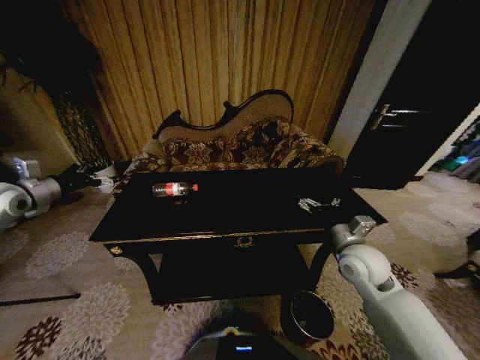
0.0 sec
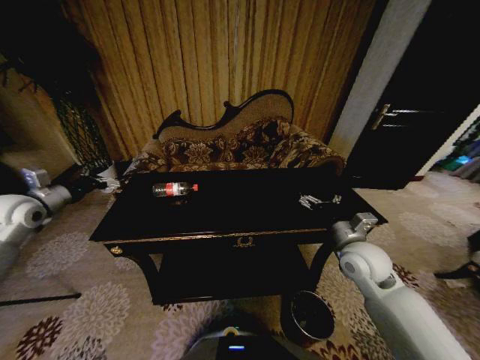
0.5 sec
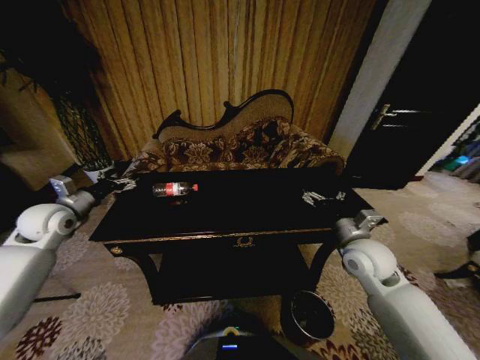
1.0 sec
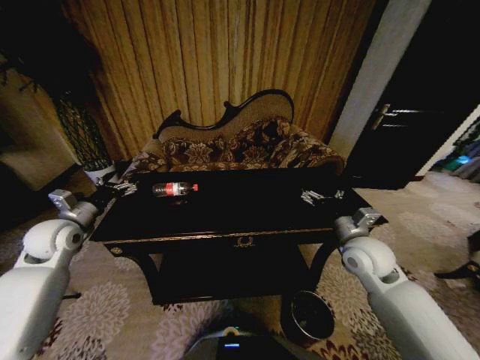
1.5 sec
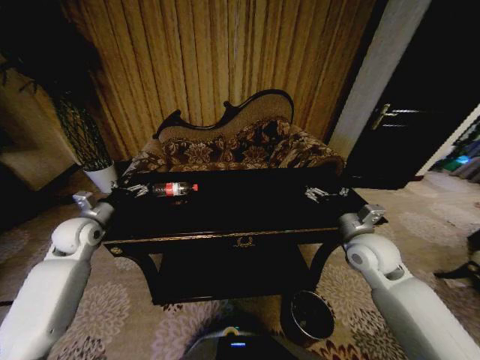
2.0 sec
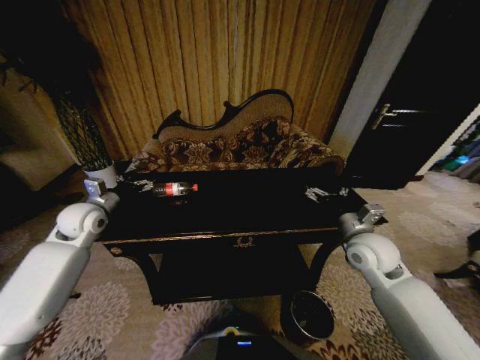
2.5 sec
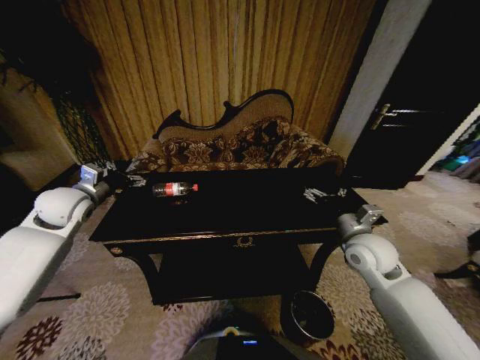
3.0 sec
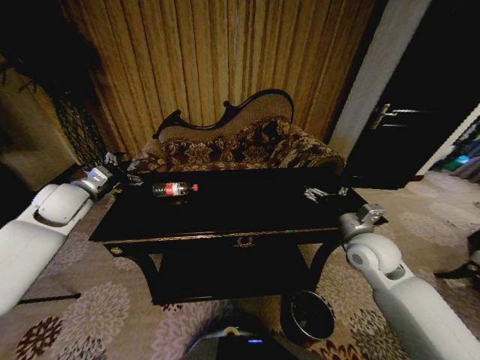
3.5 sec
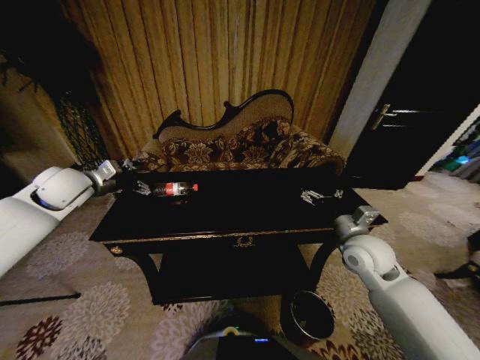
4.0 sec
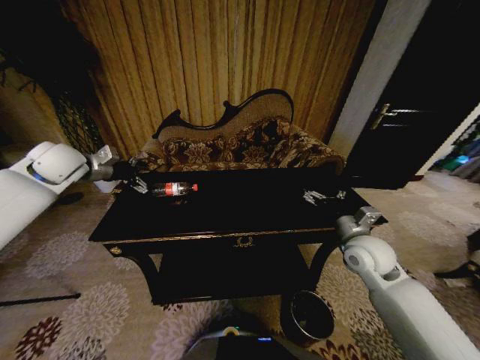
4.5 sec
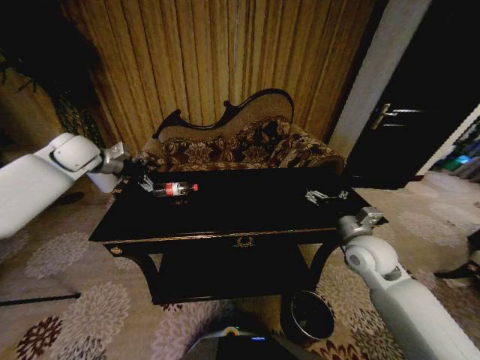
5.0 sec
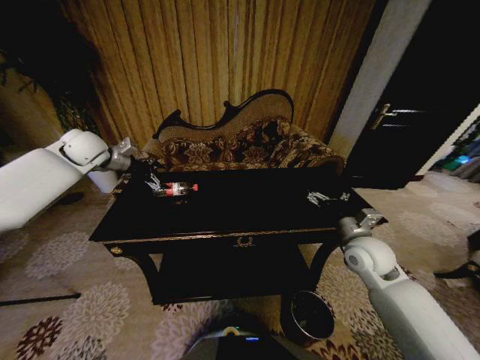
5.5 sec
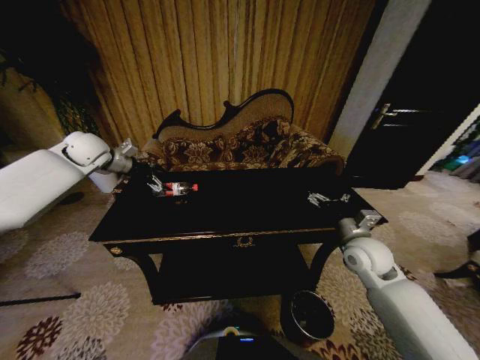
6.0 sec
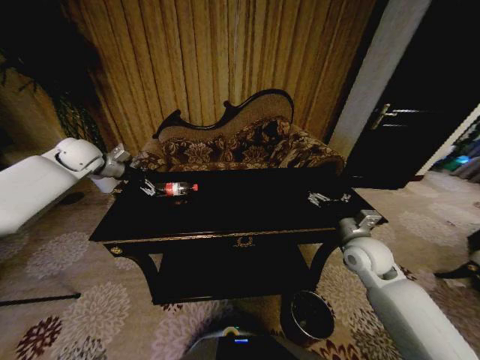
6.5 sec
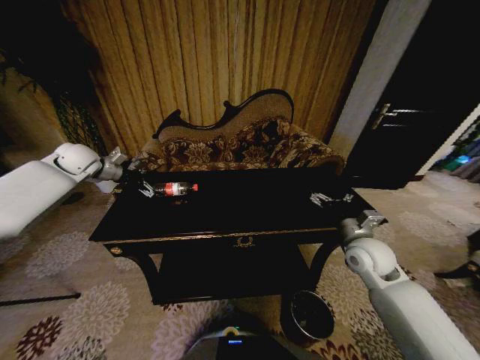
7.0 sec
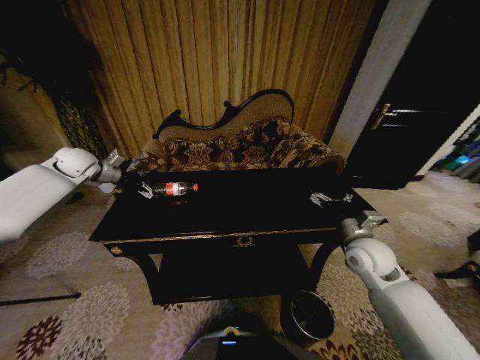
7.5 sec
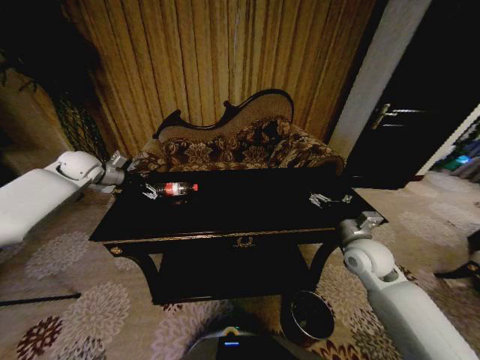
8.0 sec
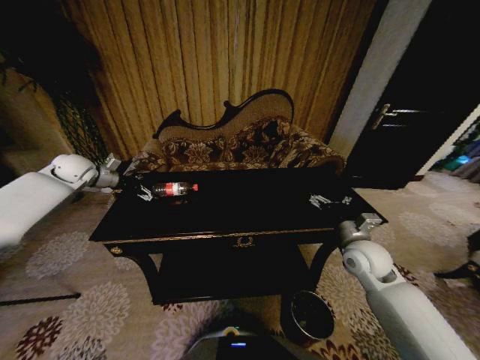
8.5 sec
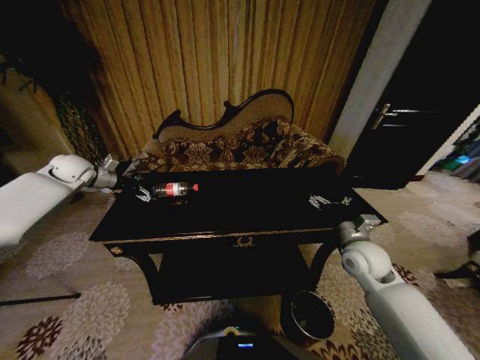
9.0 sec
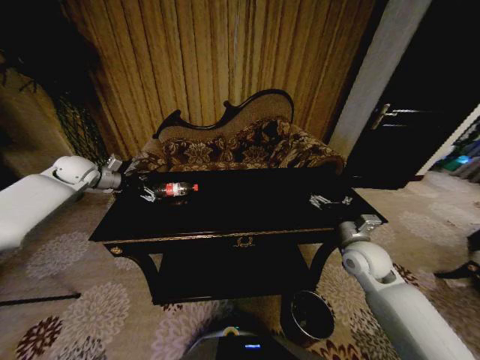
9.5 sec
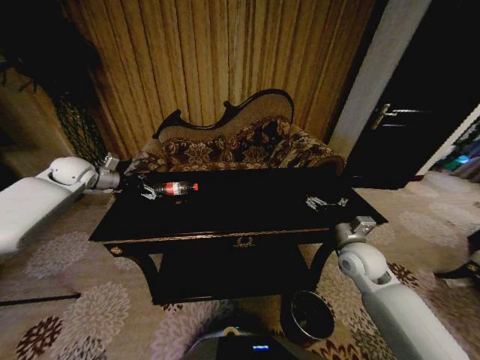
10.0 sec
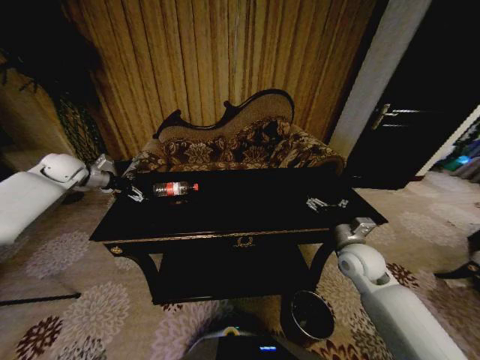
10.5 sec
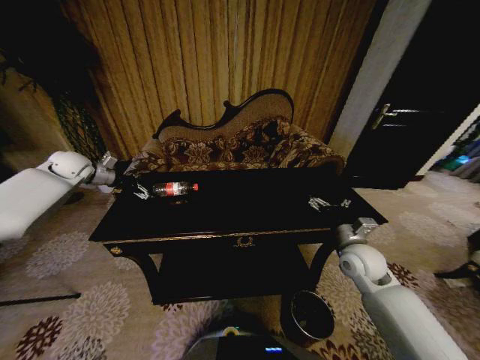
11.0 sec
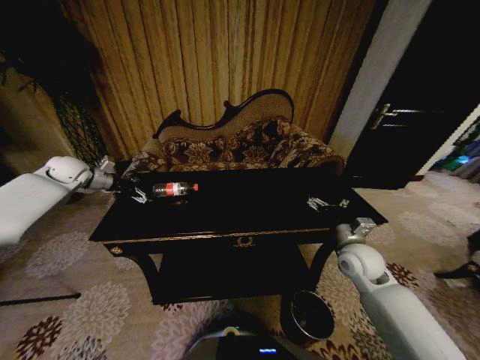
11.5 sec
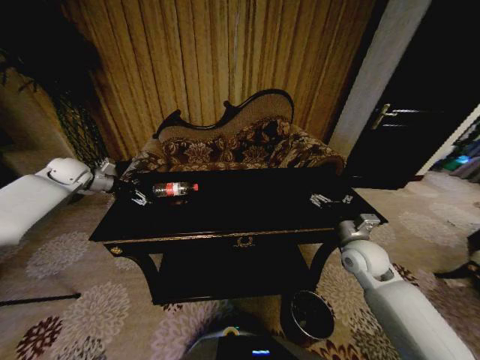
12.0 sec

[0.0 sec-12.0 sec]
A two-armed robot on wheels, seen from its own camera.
Task of the whole recording: Move to the front of the table and place the trash on the table into the trash bin.
0.0 sec to 2.0 sec: The left gripper goes about 15 cm to the right and downward.
2.0 sec to 4.0 sec: The left gripper travels upward by approximately 15 cm.
4.0 sec to 6.0 sec: The left gripper shifts some 10 cm forward.
6.0 sec to 8.0 sec: The left gripper shifts approximately 5 cm downward.
8.0 sec to 12.0 sec: The grippers stay close to where they were, moving slightly.

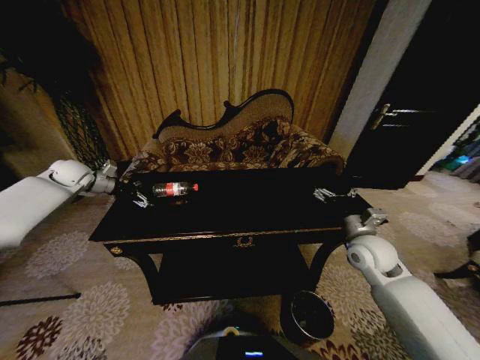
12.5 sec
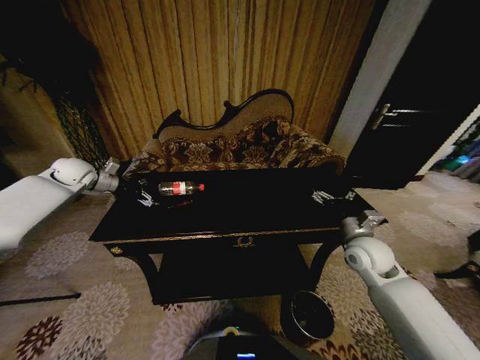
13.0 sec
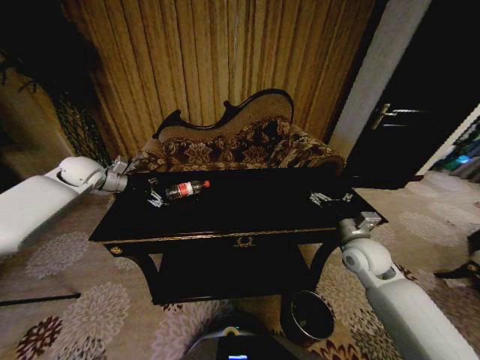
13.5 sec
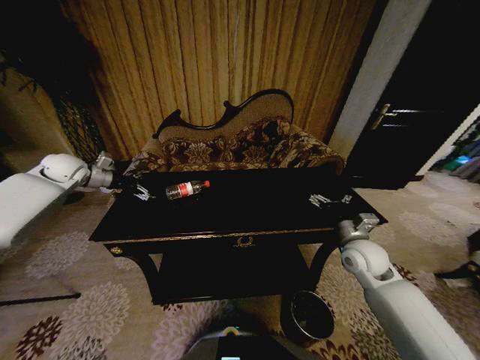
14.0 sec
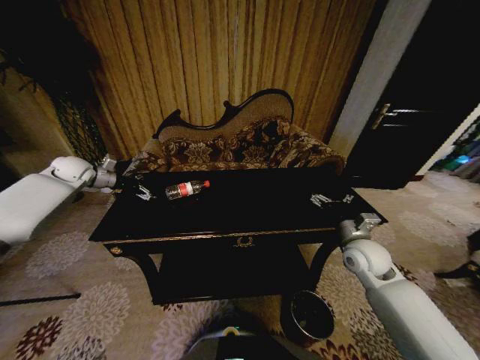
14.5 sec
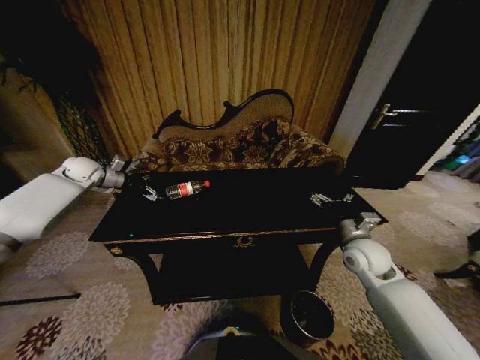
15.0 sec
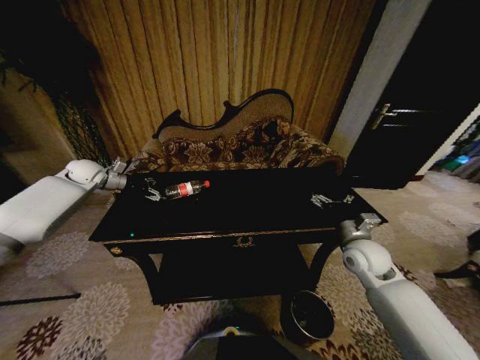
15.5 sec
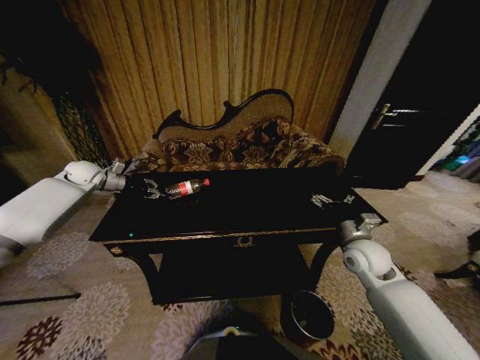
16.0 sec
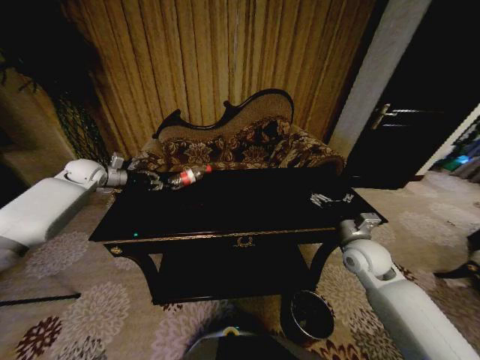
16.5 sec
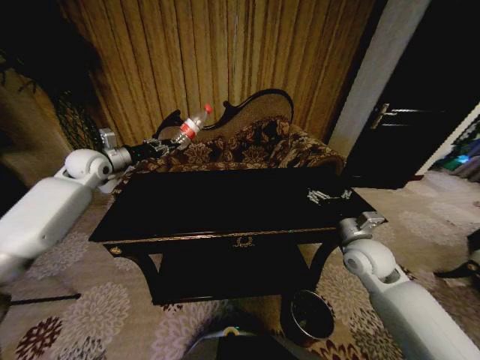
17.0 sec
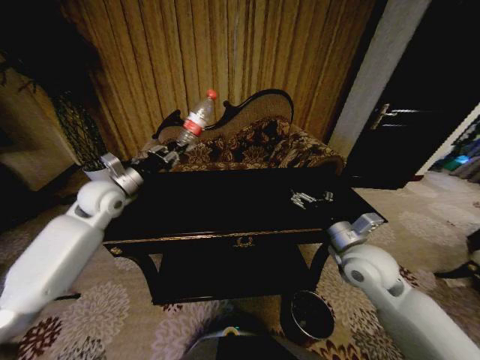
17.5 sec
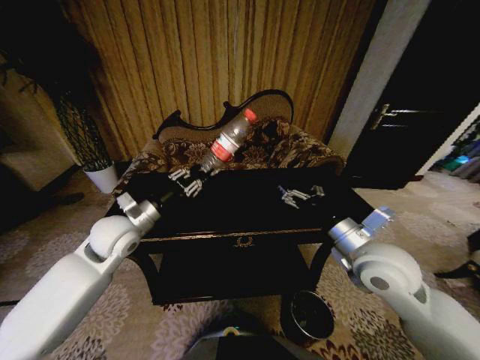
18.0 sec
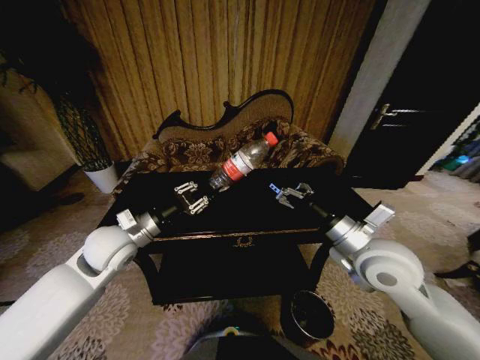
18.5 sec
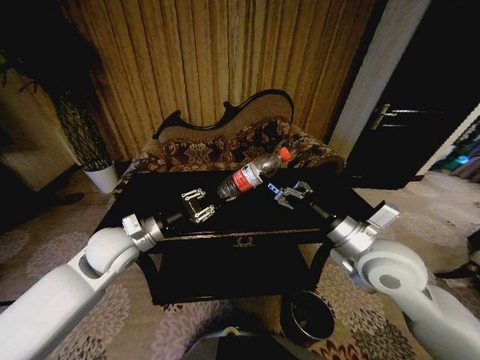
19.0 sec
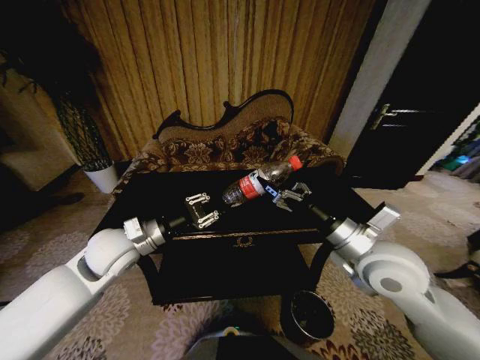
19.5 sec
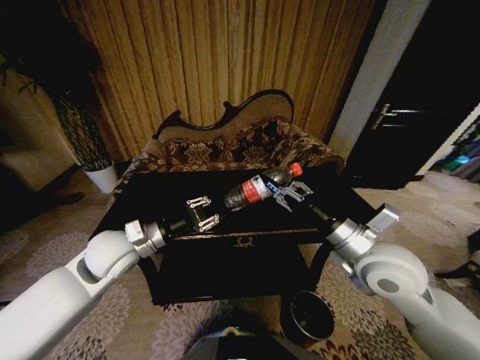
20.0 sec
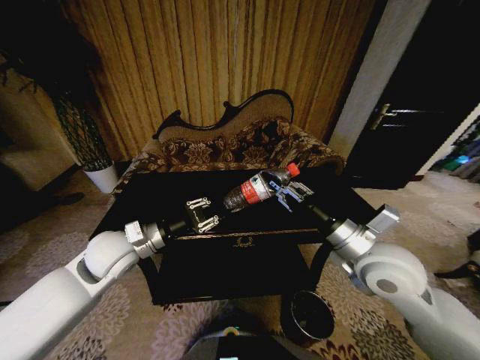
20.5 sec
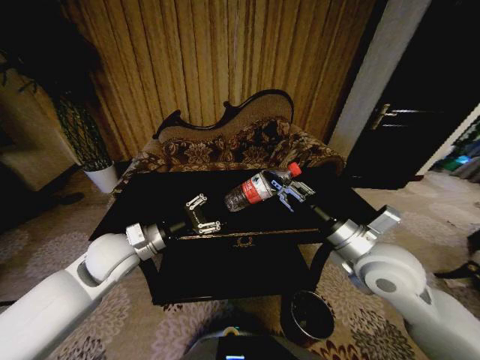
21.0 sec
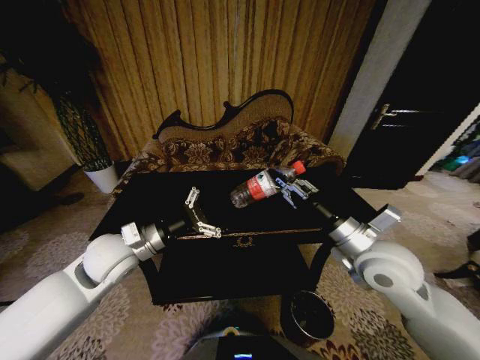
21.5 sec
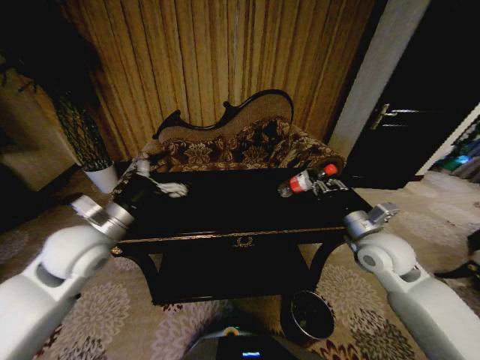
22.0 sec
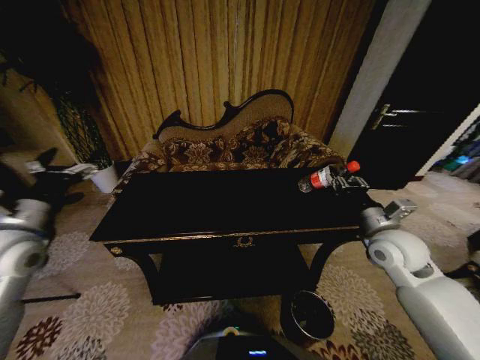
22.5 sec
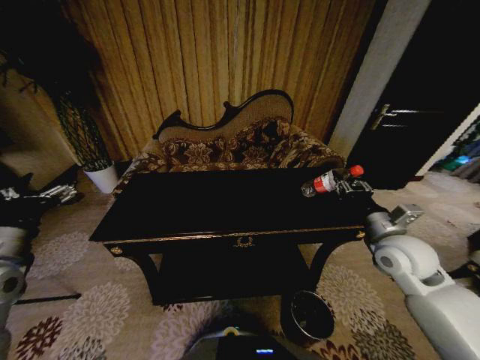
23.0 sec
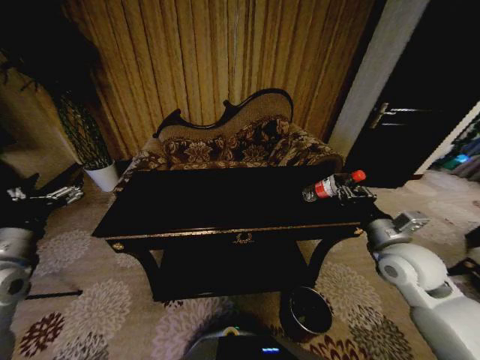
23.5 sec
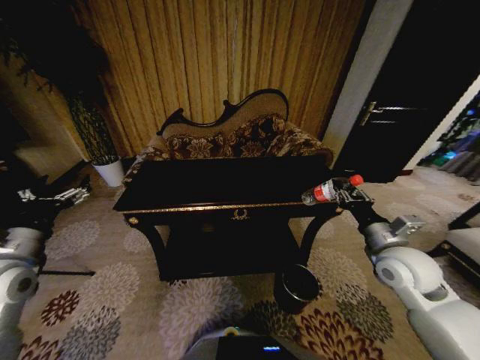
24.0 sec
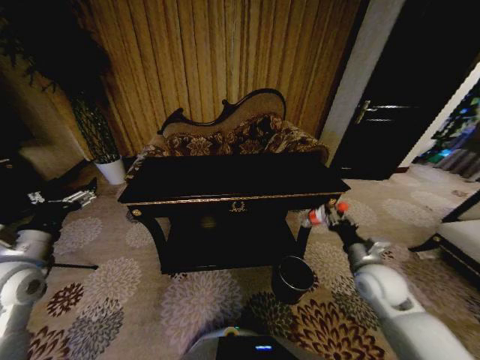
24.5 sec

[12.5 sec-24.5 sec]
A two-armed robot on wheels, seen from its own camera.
Task of the whole recording: Move to the front of the table and place the trash on the table into the trash bin.
14.5 sec to 16.5 sec: The left gripper closes its fingers.
16.5 sec to 18.5 sec: The left gripper heads backward and to the right, covering approximately 30 cm; the right gripper goes some 15 cm upward, to the left and backward.
18.5 sec to 20.5 sec: The right gripper closes its fingers.
20.5 sec to 22.5 sec: The right gripper heads to the right and forward, covering about 10 cm. The left gripper heads to the left and upward, covering approximately 15 cm, and opens its fingers.
22.5 sec to 24.5 sec: The right gripper moves downward, some 10 cm, while the left gripper changes place by about 5 cm.

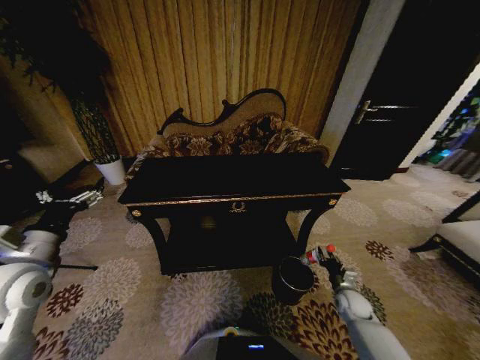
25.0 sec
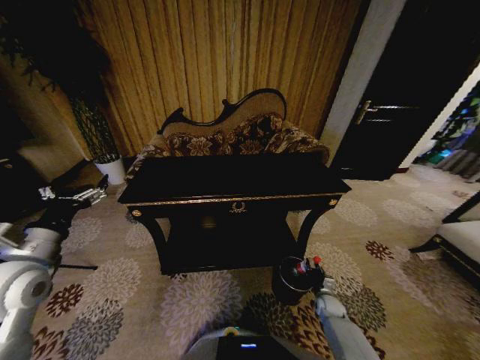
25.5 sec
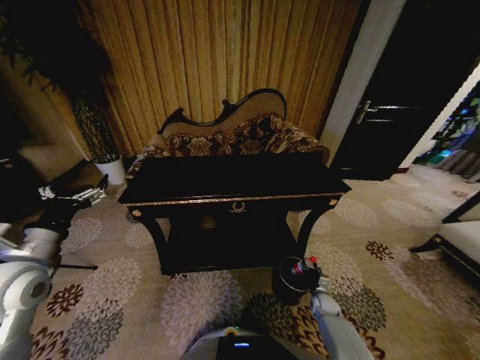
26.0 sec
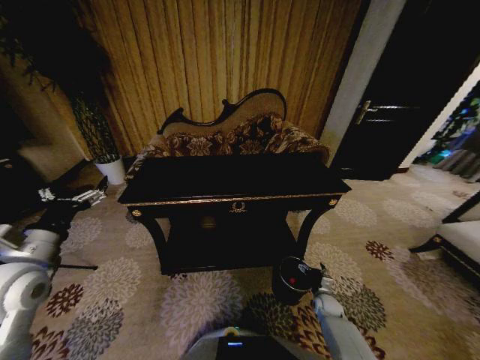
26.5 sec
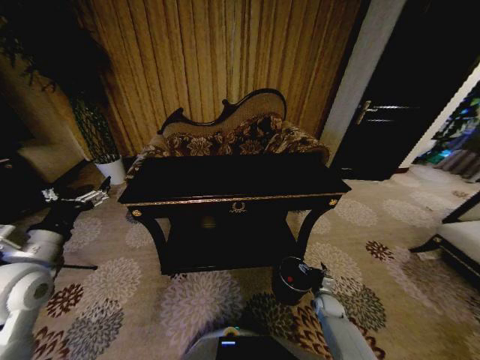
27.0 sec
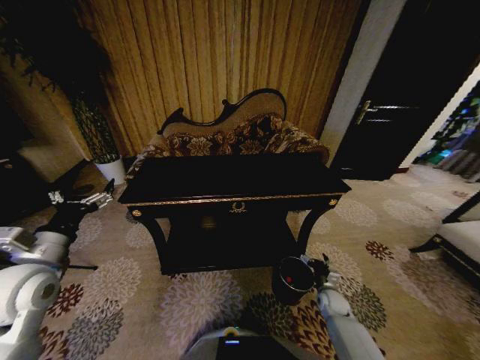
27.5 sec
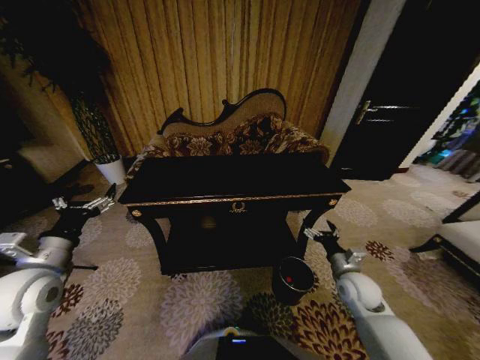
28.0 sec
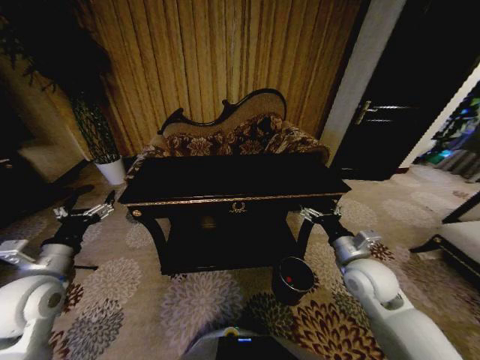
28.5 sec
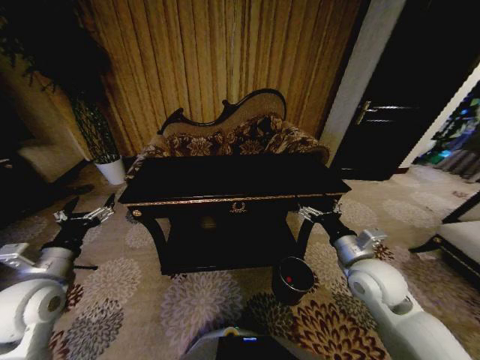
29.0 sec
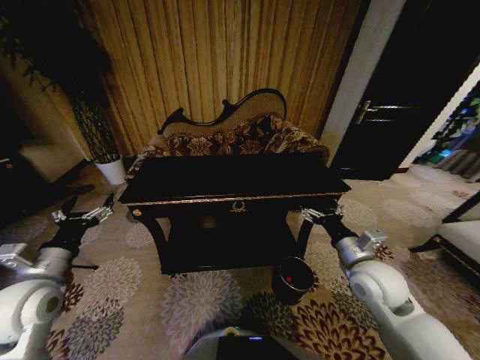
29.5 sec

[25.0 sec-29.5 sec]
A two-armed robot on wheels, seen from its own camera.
Task of the whole recording: Move to the front of the table and place the trash on the table into the trash bin.
25.0 sec to 27.0 sec: The right gripper is displaced downward by roughly 10 cm, and opens up.
27.0 sec to 29.5 sec: The right gripper goes some 35 cm upward.
